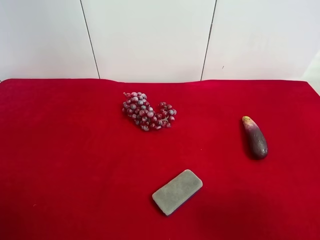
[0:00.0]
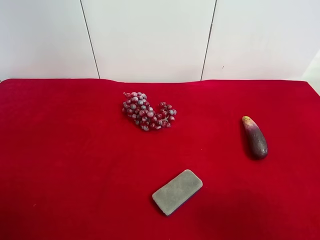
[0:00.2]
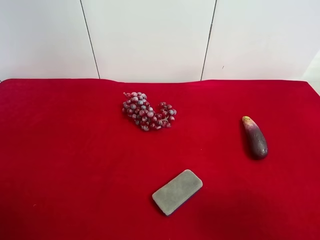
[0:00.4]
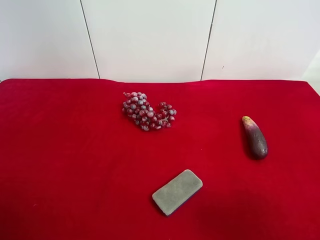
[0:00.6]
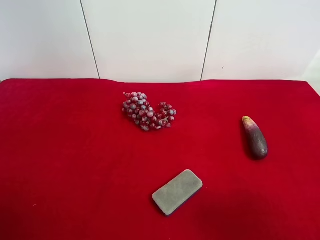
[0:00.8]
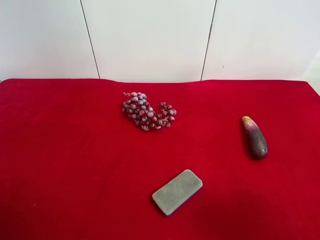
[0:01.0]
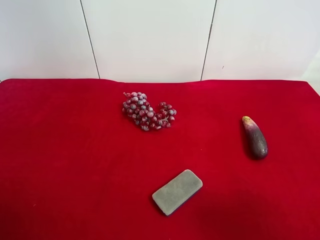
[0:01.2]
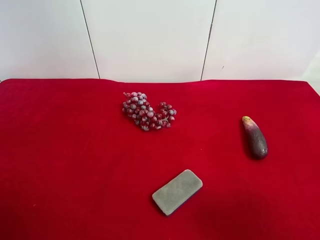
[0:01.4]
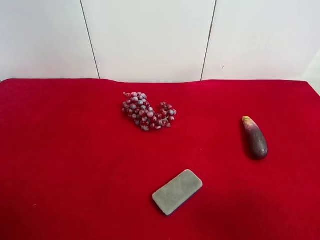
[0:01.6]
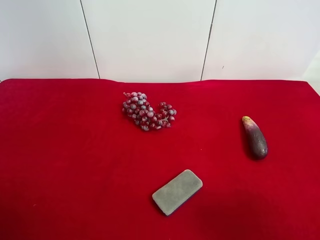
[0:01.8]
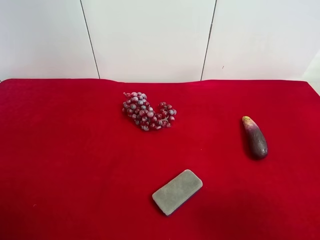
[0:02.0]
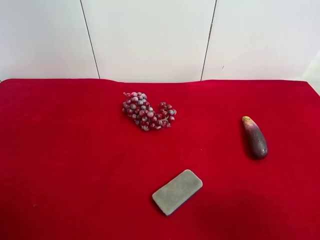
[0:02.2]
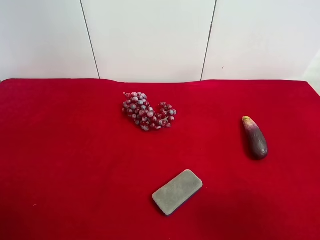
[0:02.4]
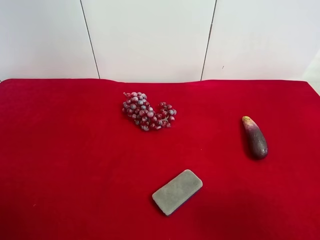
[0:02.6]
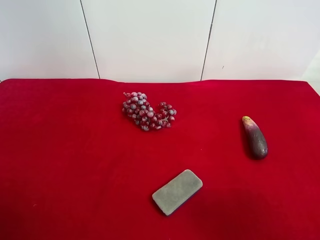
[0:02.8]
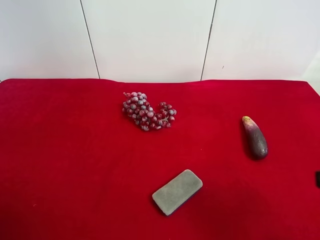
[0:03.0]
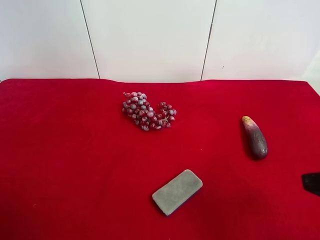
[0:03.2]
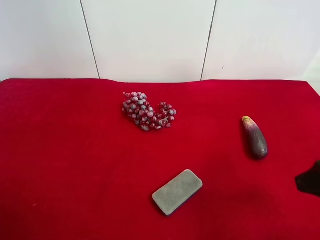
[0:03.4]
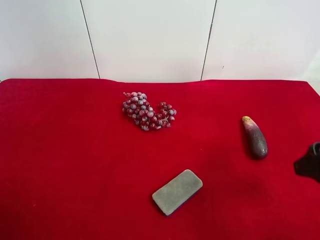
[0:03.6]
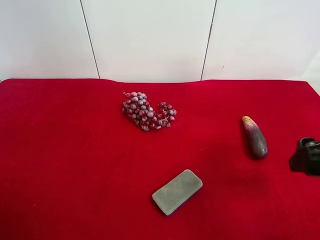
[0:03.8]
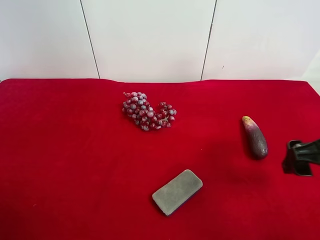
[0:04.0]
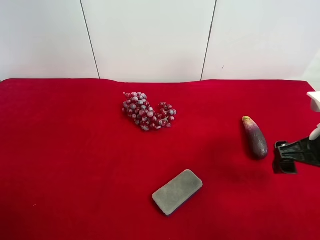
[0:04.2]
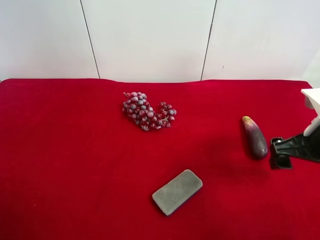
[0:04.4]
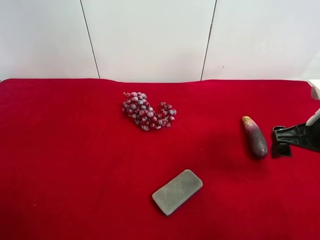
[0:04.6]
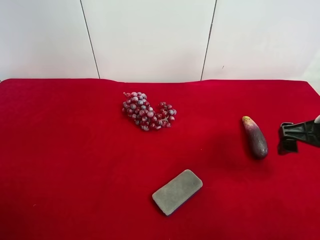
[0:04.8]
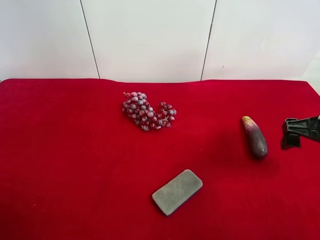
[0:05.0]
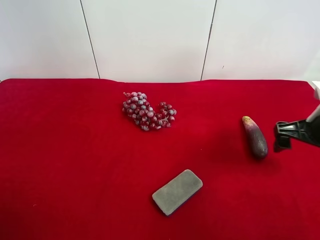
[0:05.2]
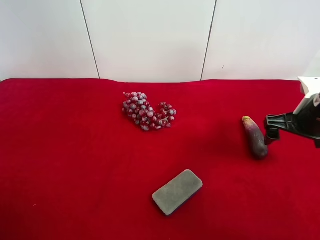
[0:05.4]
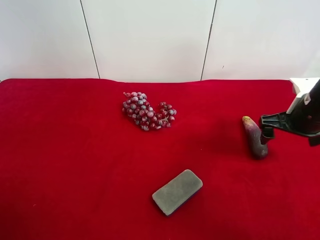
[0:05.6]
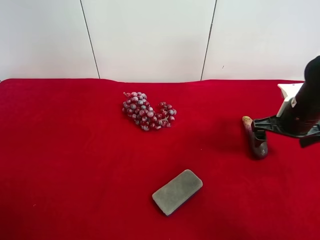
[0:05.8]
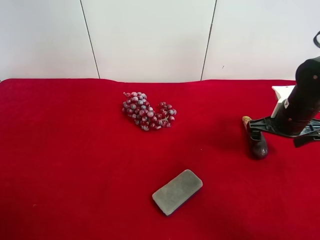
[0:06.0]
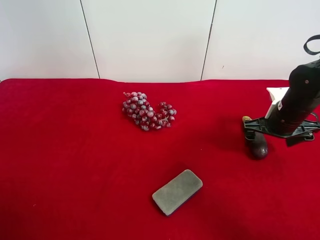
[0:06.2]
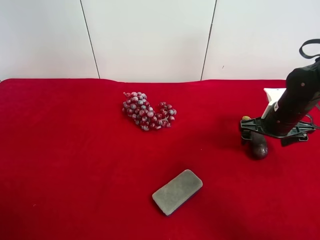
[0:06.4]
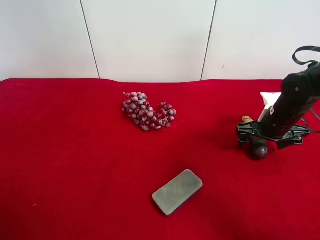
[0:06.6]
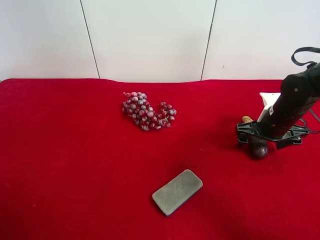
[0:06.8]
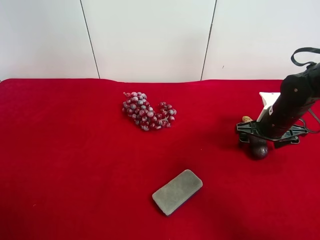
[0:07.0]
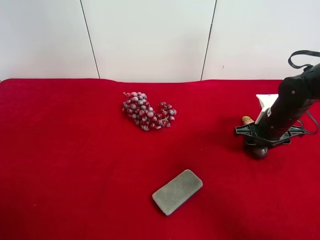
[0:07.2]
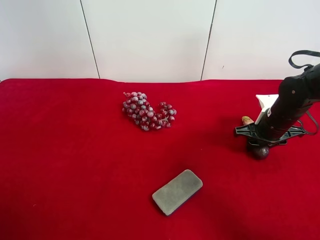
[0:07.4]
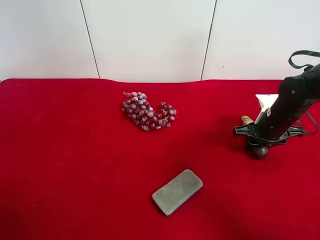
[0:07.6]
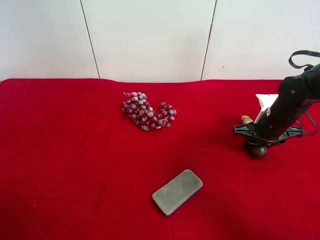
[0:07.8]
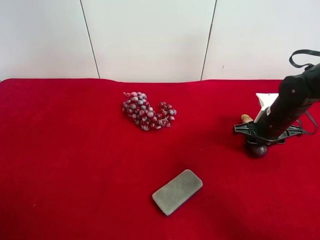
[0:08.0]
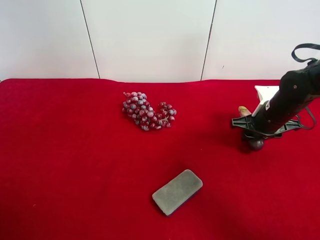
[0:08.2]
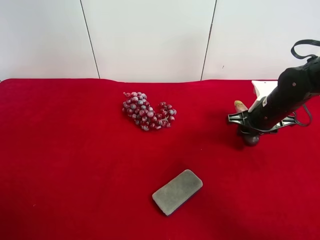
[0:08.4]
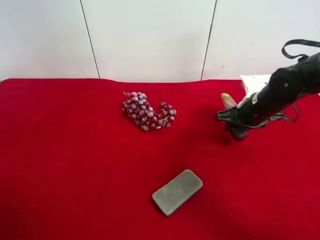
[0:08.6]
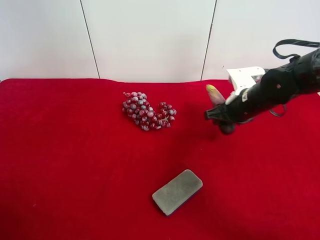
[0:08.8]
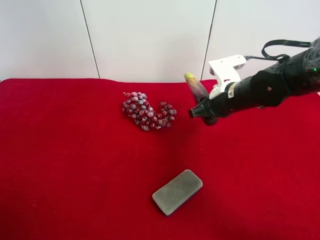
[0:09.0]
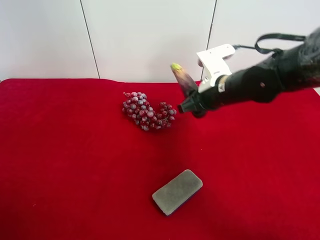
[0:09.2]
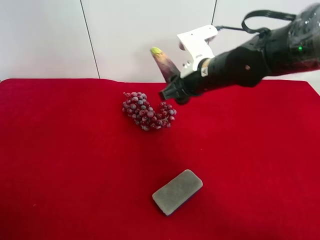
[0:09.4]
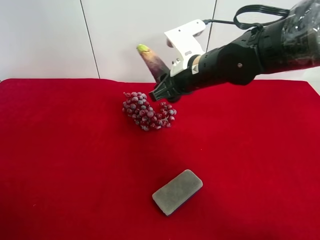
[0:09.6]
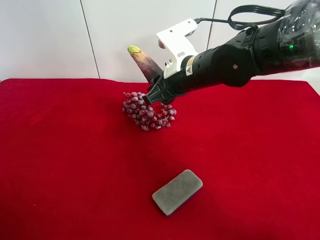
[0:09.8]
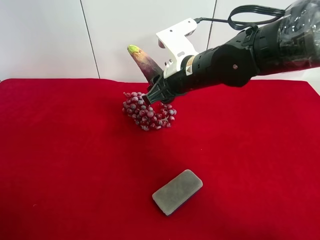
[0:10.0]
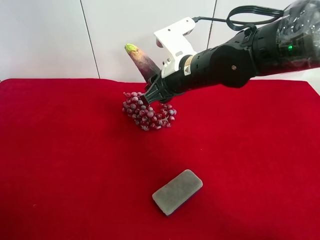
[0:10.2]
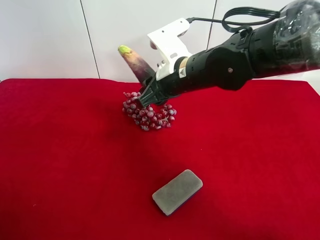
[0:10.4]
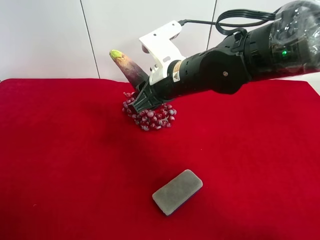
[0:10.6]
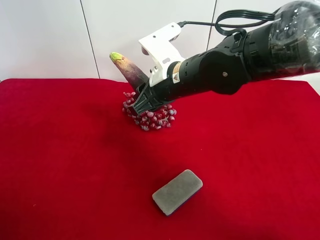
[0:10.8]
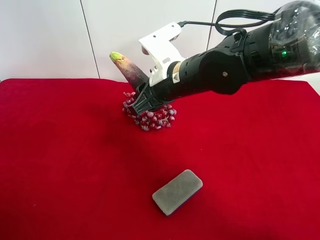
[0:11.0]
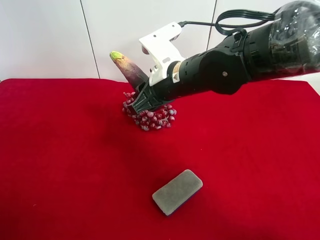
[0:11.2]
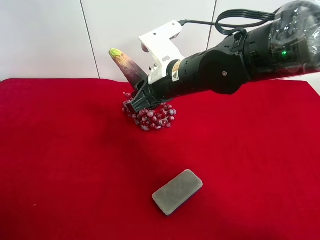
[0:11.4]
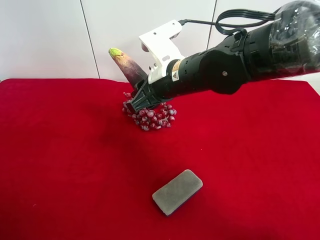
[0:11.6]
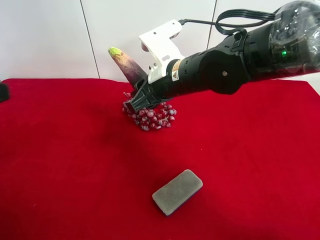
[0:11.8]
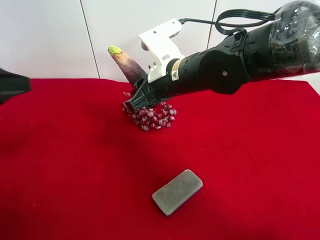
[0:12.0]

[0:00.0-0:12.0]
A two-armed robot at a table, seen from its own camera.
Task of the whole recording: use the right gripper to pick up the item and transfer it from the right gripper to the left gripper.
Step, 0:00.0 to 0:07.2: Use the right gripper to grab the eggplant on the right side of the table.
0:00.0 to 0:01.6: Both grippers stay about where they are.
0:03.0 to 0:04.4: The right gripper travels forward and downward by some 15 cm.
0:04.4 to 0:06.0: The right gripper shifts about 15 cm forward and downward.
0:06.0 to 0:07.6: The right gripper closes up.
0:07.6 to 0:09.0: The right gripper moves to the left and upward, about 15 cm.
0:09.0 to 0:10.4: The right gripper is displaced to the left and upward by about 10 cm.
0:10.4 to 0:12.0: The left gripper is displaced forward by approximately 15 cm.

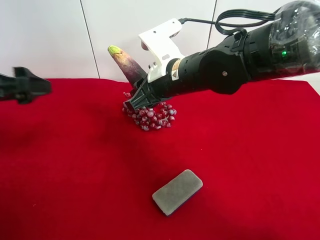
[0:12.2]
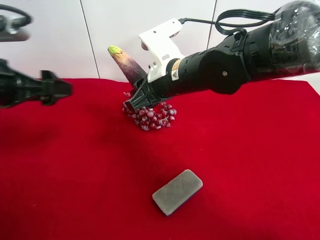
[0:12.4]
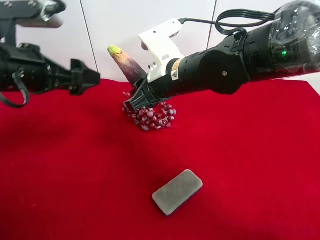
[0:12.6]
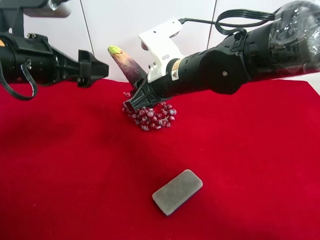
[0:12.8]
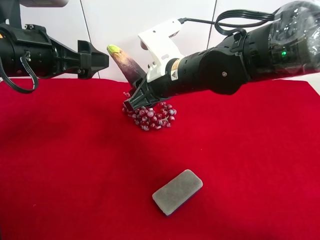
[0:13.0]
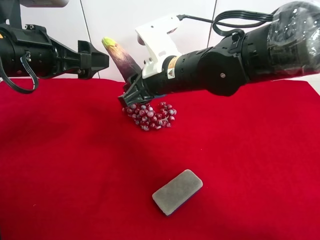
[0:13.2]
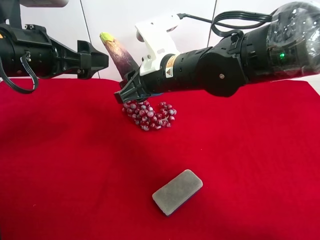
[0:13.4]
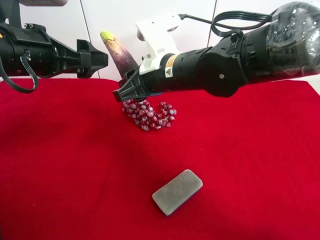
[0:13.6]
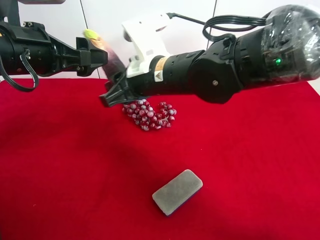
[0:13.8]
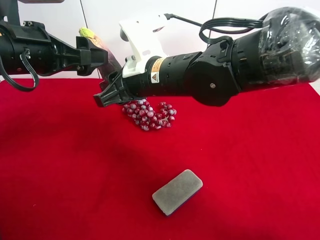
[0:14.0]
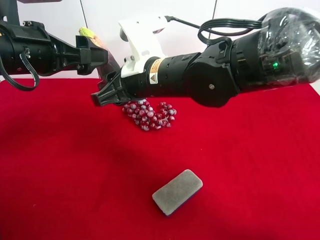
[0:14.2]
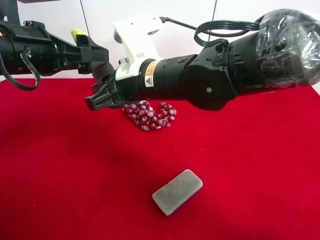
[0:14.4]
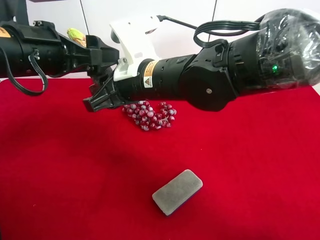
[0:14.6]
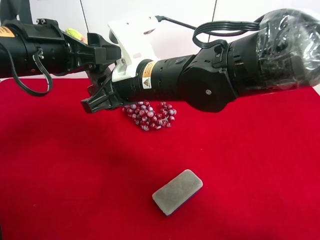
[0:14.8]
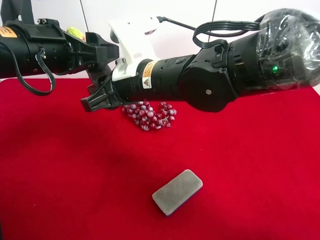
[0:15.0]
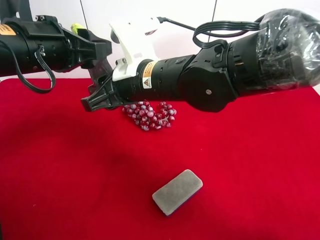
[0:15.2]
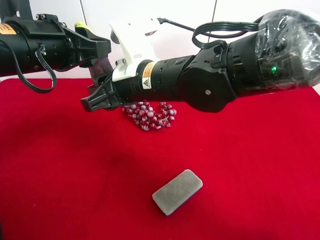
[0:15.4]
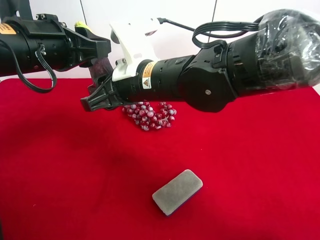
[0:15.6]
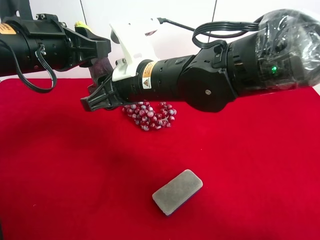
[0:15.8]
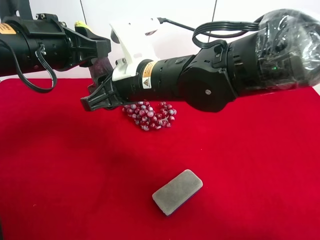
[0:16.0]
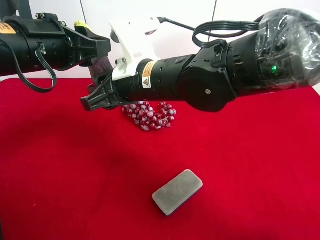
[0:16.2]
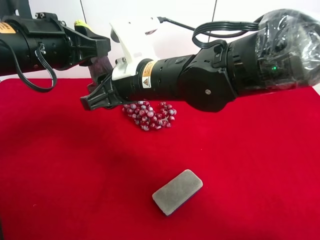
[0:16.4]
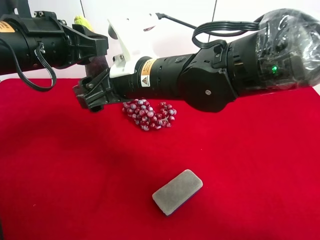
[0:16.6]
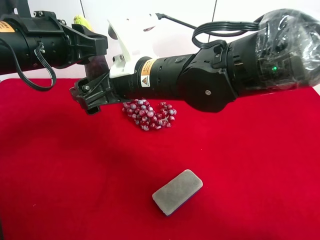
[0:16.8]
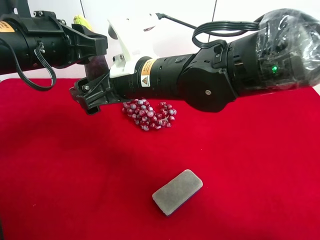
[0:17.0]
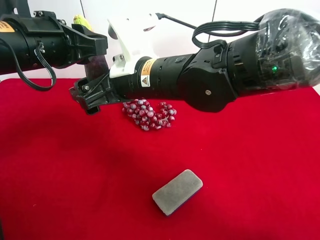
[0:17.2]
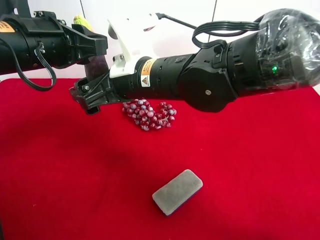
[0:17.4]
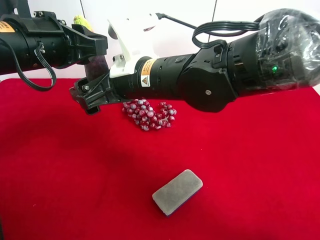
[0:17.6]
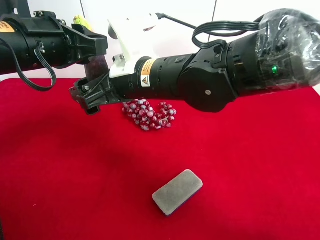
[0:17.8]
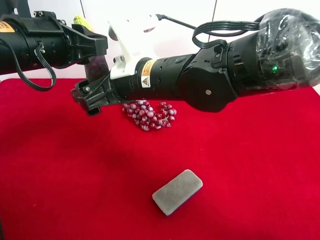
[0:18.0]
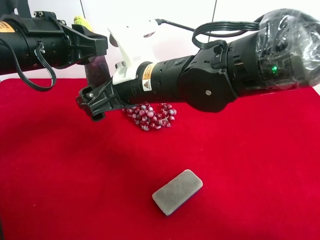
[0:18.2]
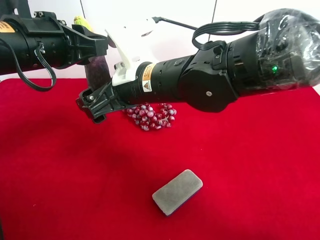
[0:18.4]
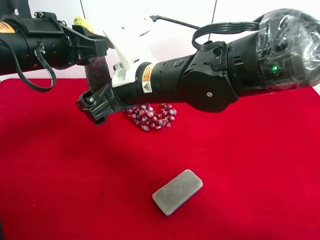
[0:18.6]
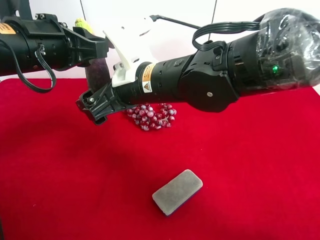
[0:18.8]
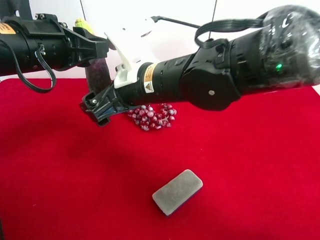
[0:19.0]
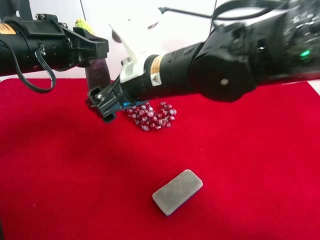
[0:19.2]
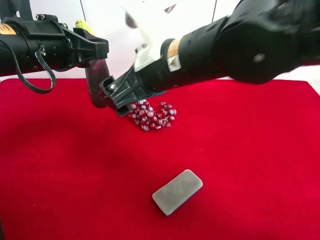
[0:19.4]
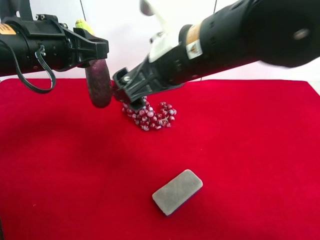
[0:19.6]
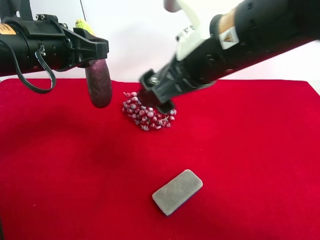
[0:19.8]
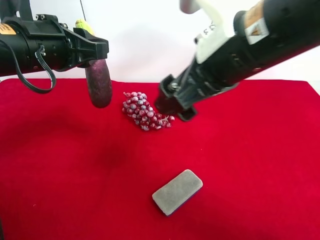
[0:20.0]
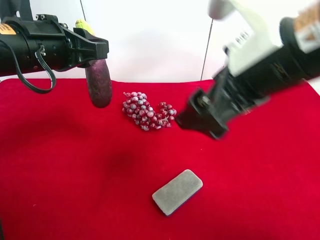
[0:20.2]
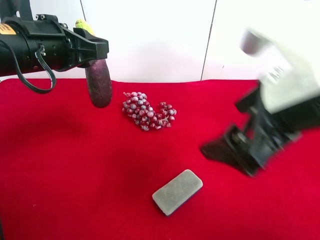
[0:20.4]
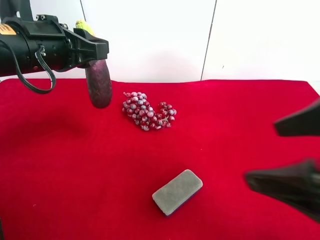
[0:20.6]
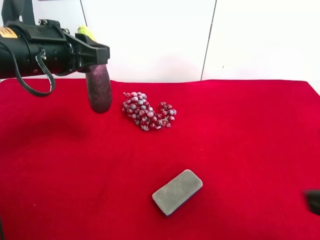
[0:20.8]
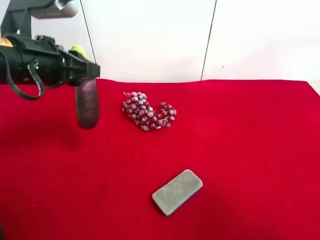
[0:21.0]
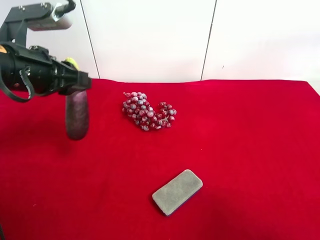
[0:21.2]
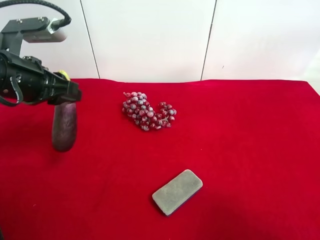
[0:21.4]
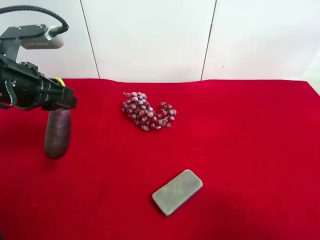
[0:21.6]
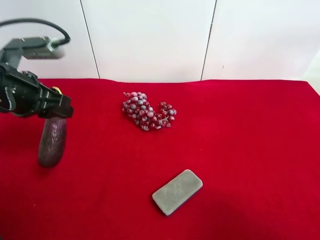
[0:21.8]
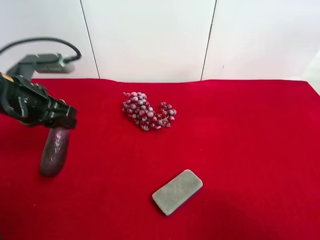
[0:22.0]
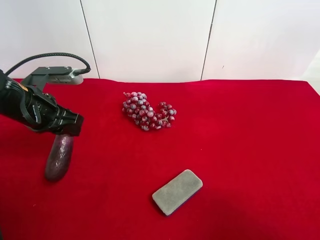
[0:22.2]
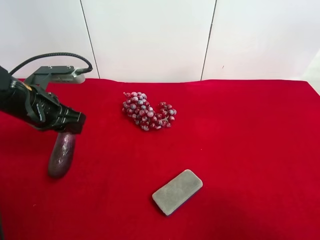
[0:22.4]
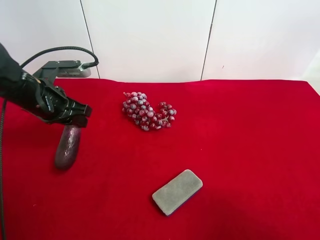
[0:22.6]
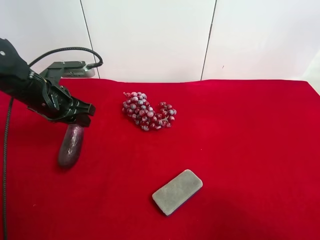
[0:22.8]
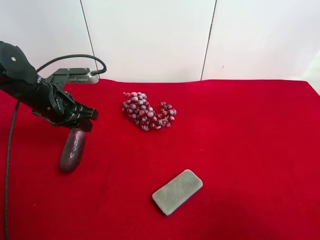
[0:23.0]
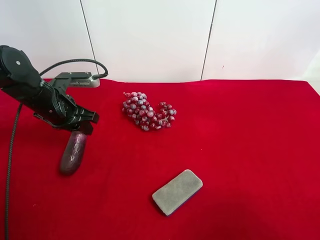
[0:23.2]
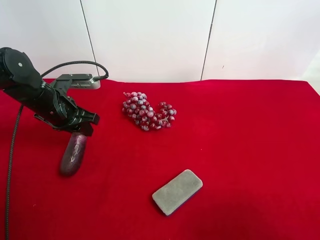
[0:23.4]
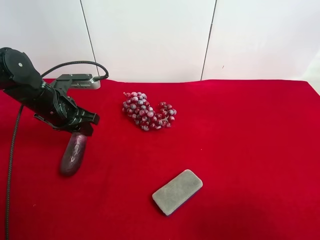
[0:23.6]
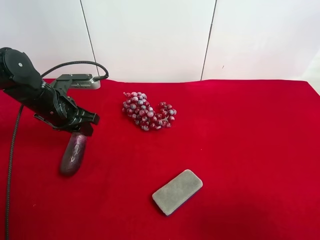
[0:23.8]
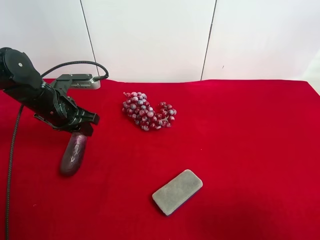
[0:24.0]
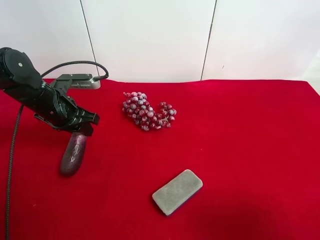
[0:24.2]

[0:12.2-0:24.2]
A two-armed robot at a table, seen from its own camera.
Task of the whole recording: use the right gripper to pick up the item and transfer it from the right gripper to the left gripper.
Step, 0:12.2 to 0:17.0: Pass the eggplant to the left gripper.
0:12.2 to 0:13.8: The left gripper shifts approximately 10 cm to the right.
0:13.8 to 0:15.2: The left gripper closes up.
0:15.2 to 0:16.6: The right gripper opens.
0:16.6 to 0:18.2: Both grippers stay about where they are.
0:18.2 to 0:19.8: The right gripper goes about 10 cm upward, to the right and backward.
0:19.8 to 0:21.2: The right gripper is displaced to the right and backward by about 30 cm.
0:21.2 to 0:22.6: The left gripper moves downward and forward, approximately 10 cm.
